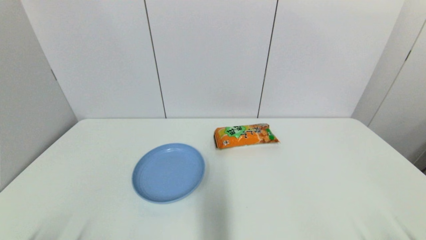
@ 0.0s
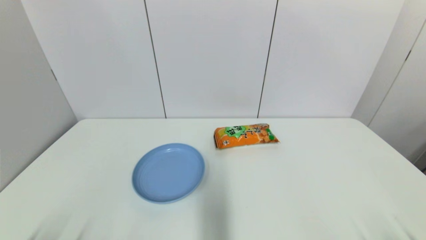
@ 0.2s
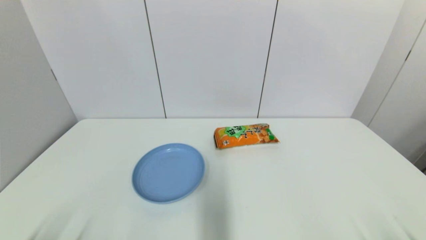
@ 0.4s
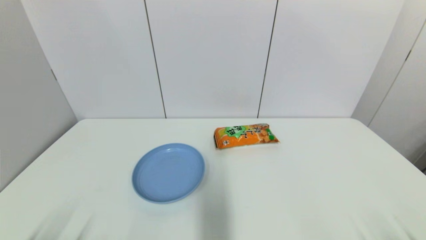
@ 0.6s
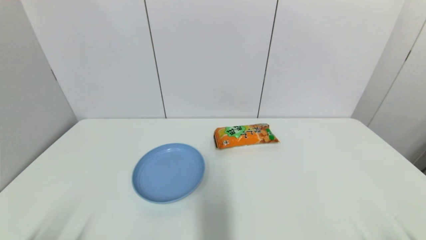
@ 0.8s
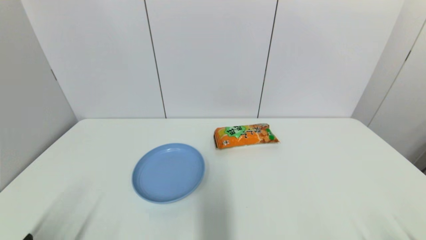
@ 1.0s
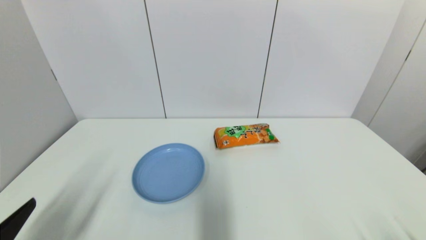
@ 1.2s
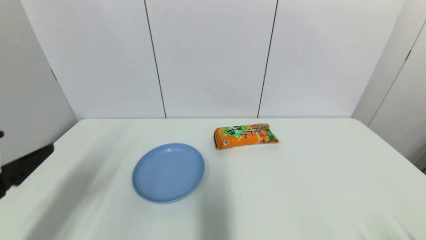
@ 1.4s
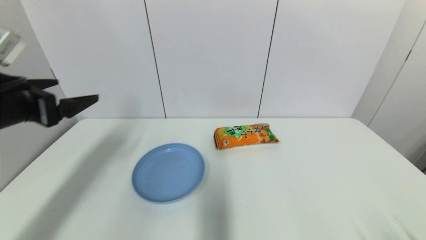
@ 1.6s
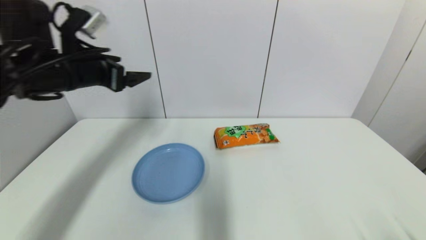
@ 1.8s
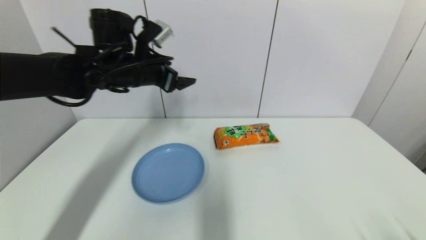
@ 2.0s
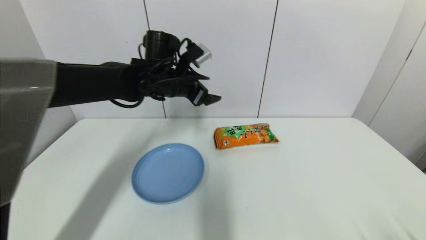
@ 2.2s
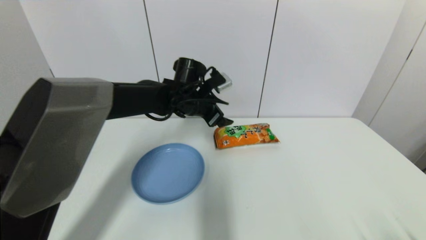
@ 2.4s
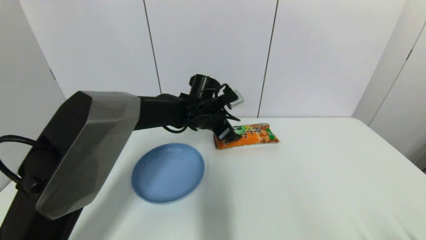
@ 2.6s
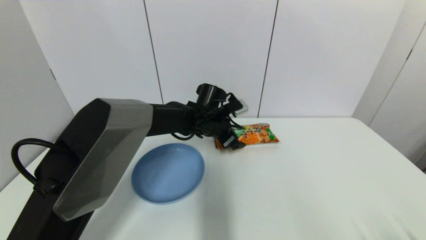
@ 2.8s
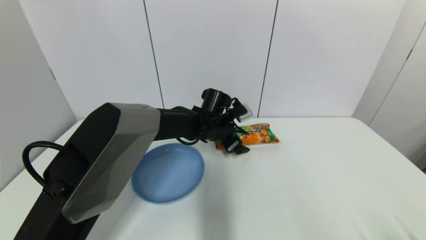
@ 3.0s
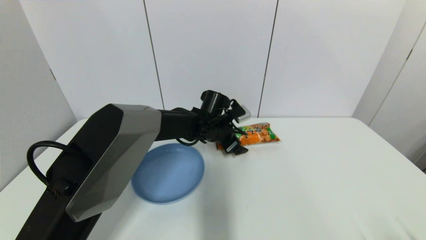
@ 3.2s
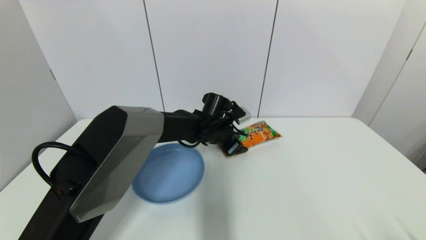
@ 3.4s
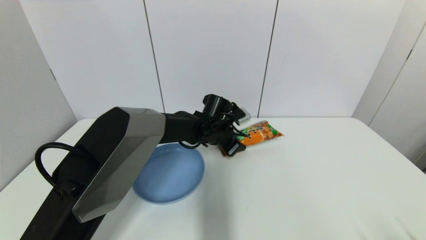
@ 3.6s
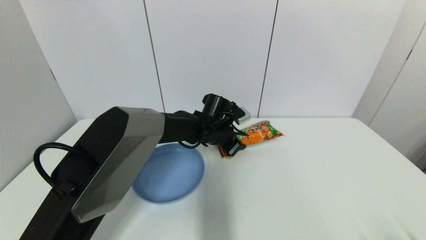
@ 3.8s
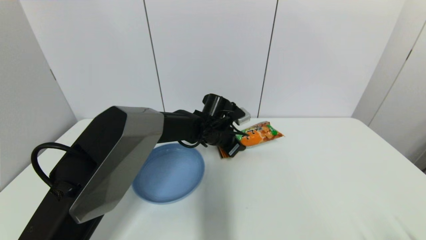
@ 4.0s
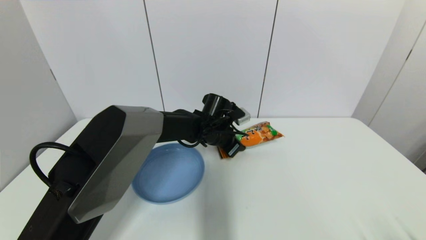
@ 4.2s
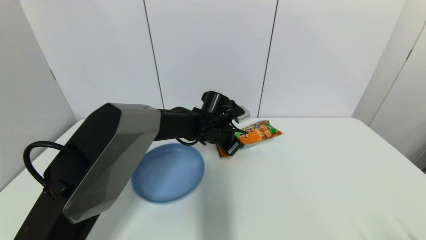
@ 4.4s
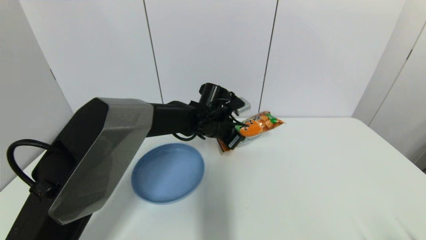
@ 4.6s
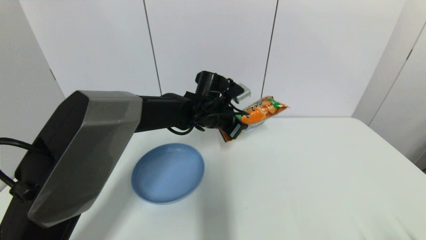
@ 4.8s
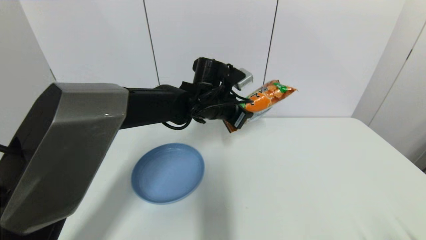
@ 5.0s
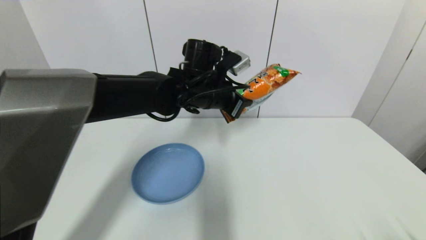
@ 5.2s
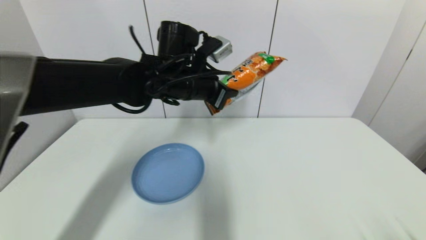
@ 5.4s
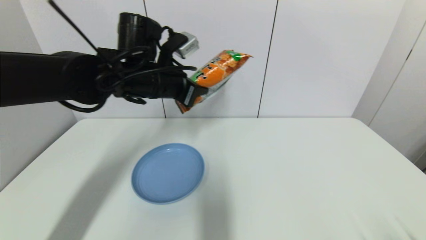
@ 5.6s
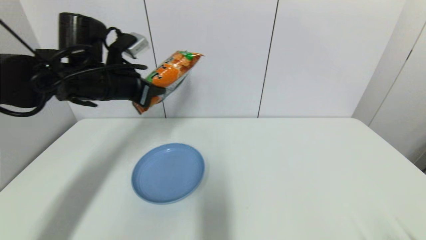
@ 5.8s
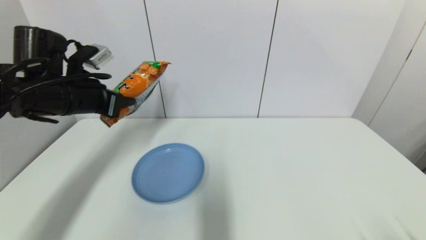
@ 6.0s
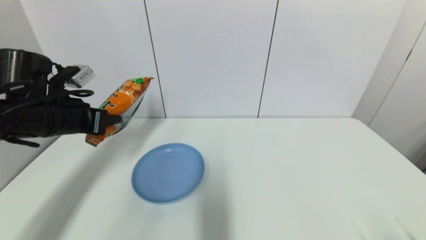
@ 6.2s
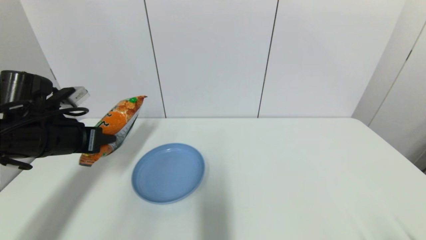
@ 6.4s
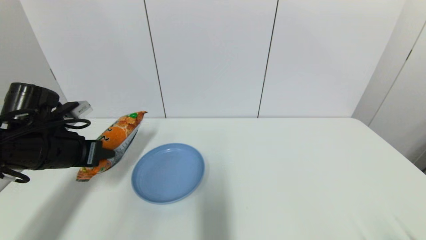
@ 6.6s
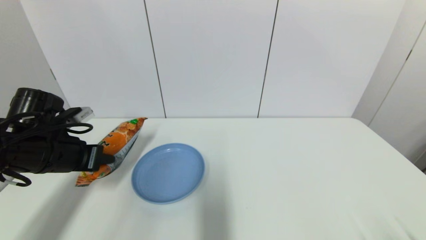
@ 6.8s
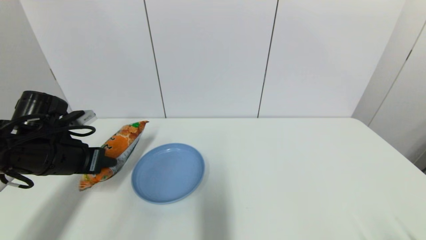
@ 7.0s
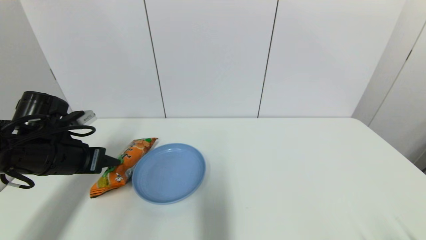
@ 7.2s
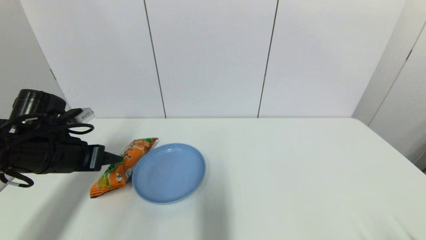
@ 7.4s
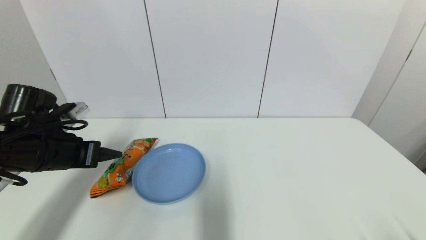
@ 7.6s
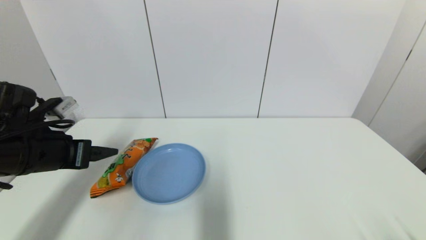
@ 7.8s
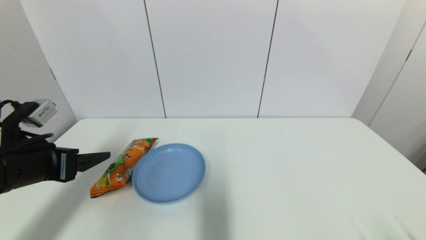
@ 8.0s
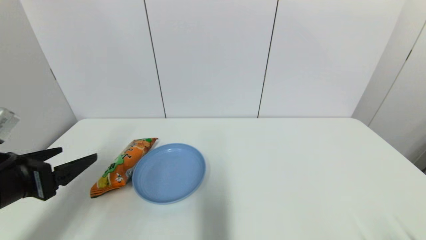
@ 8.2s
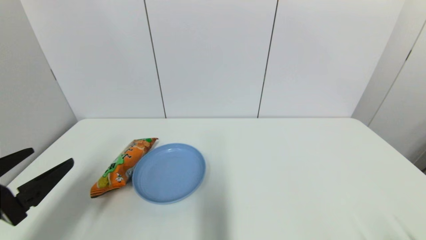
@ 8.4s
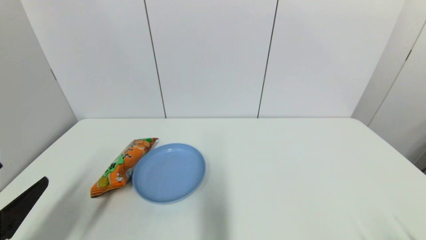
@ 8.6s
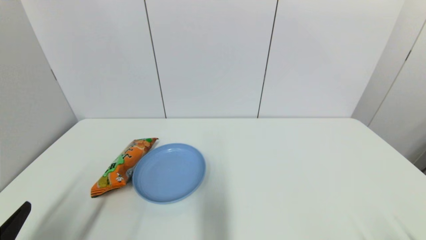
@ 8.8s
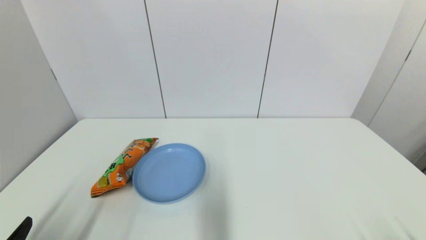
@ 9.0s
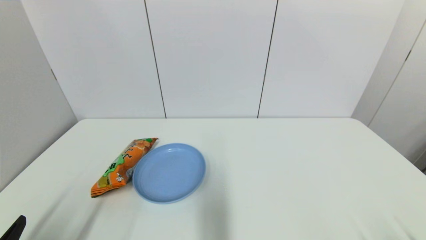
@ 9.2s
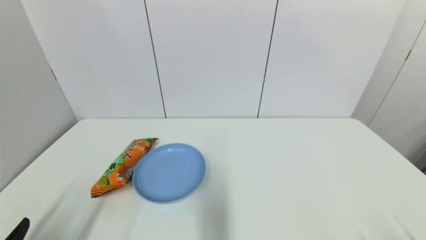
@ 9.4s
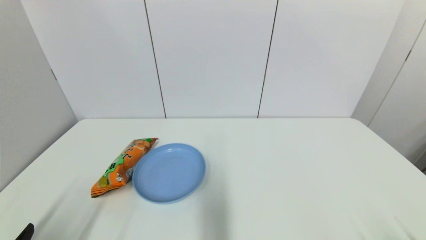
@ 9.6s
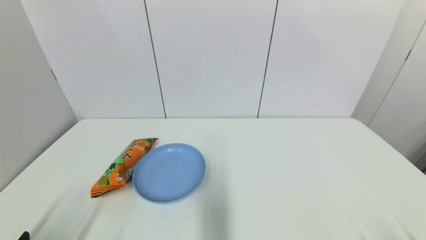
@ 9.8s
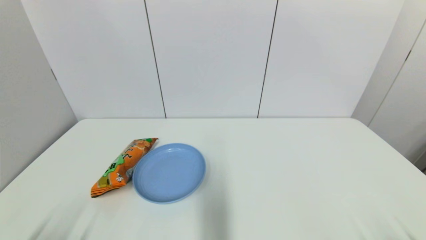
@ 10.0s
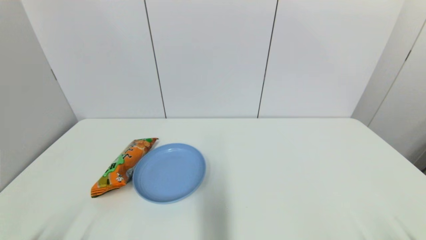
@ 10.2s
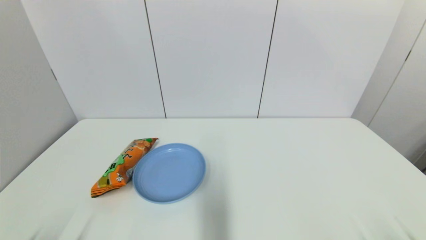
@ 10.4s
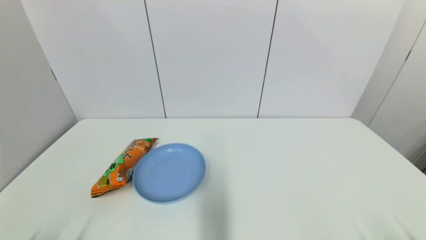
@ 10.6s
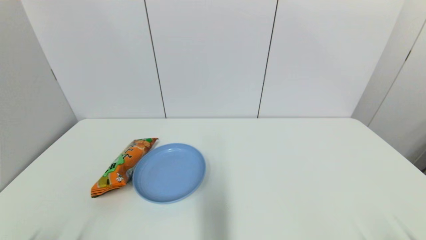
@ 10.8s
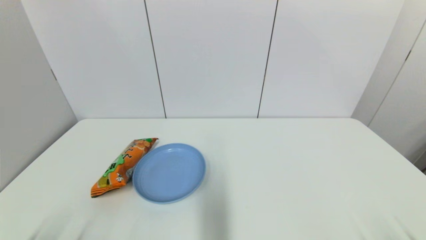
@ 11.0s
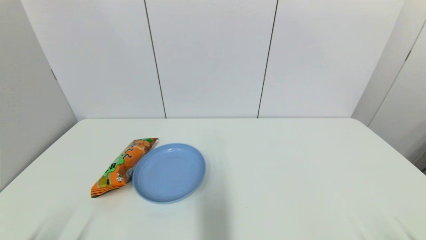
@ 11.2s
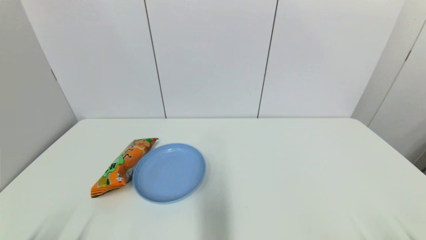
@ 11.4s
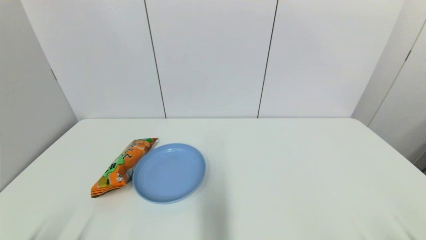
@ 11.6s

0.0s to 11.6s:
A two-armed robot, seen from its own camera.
Step, 1.0s to 4.2s: Grasp the cookie with left gripper.
Step, 4.4s to 7.8s: Place the cookie on the table with left gripper.
0.0s to 1.4s: The left gripper travels upward and forward by about 20 cm.
1.4s to 2.8s: The left gripper moves to the right and forward, approximately 40 cm.
2.8s to 4.4s: The left gripper closes its fingers.
4.4s to 5.8s: The left gripper is displaced to the left, upward and backward by about 25 cm.
5.8s to 7.2s: The left gripper is displaced downward, to the left and backward by about 15 cm, and opens up.
7.2s to 8.8s: The left gripper goes about 25 cm backward, and opens its fingers.
8.8s to 10.2s: The left gripper heads downward, covering some 5 cm.
